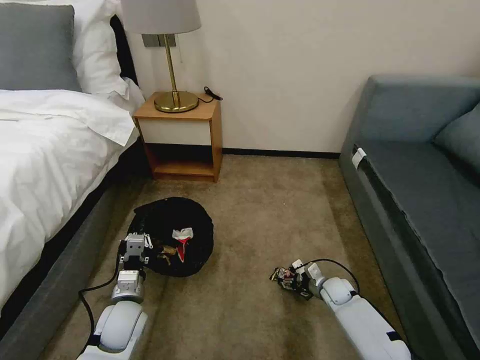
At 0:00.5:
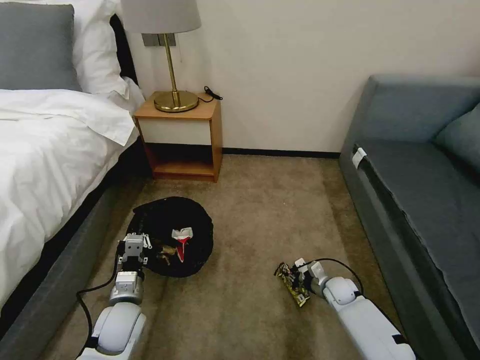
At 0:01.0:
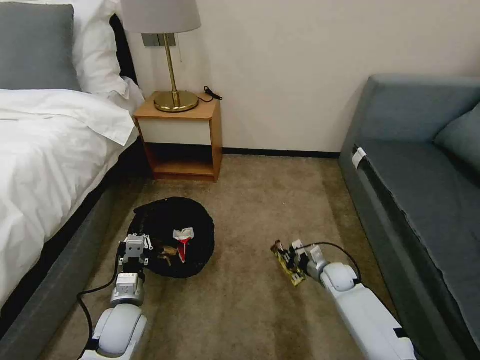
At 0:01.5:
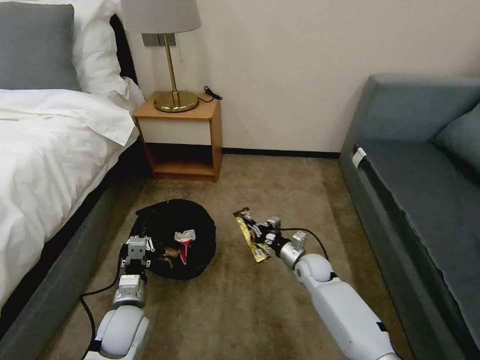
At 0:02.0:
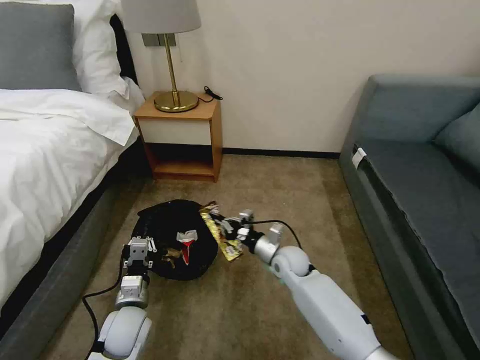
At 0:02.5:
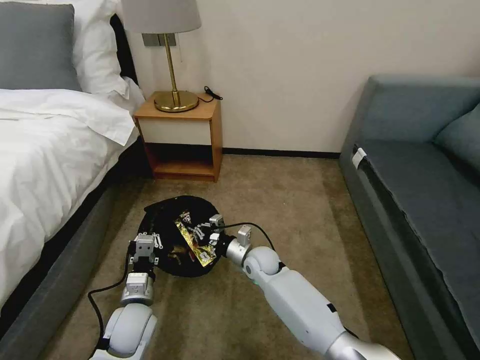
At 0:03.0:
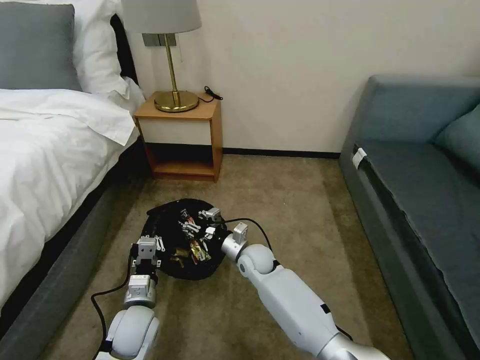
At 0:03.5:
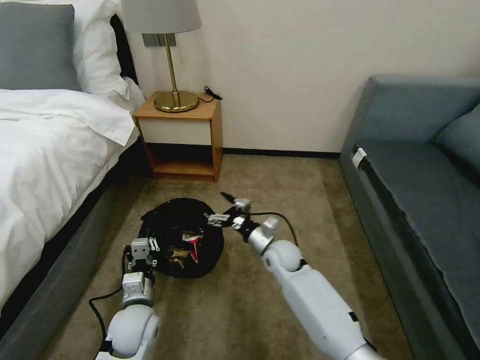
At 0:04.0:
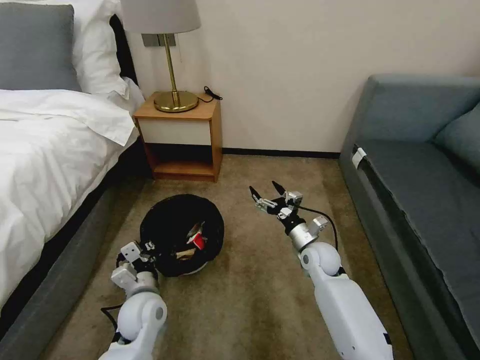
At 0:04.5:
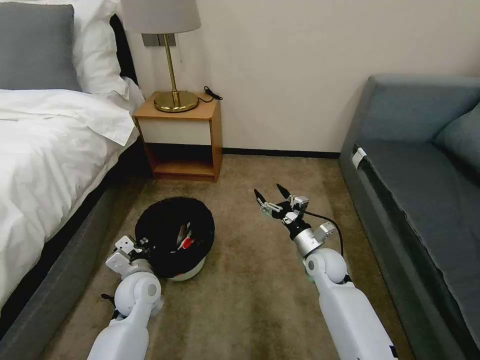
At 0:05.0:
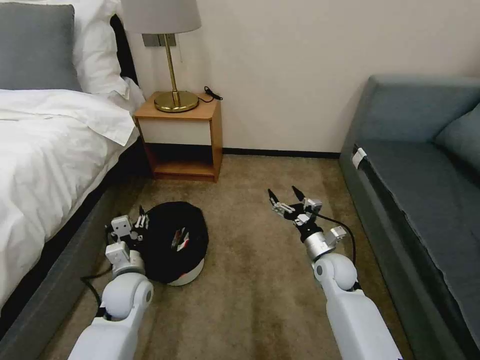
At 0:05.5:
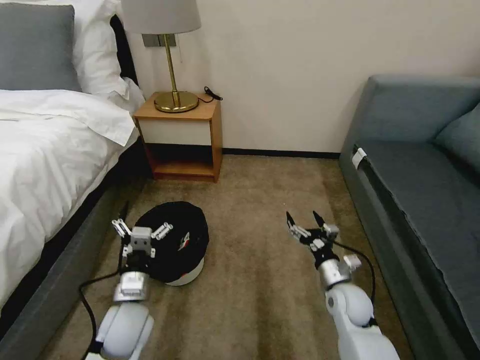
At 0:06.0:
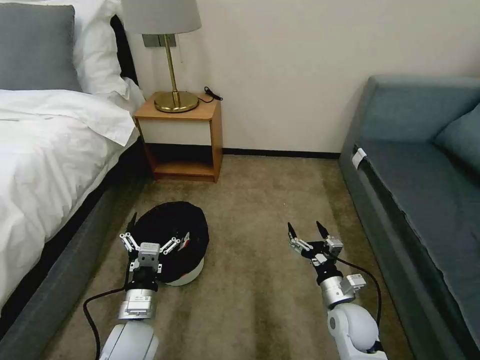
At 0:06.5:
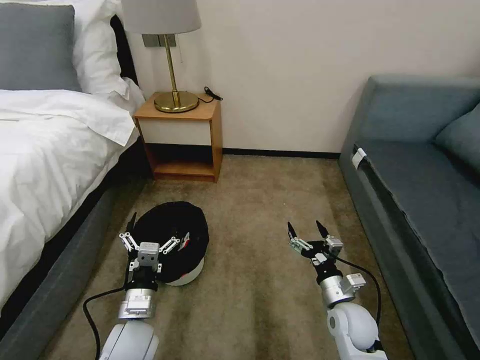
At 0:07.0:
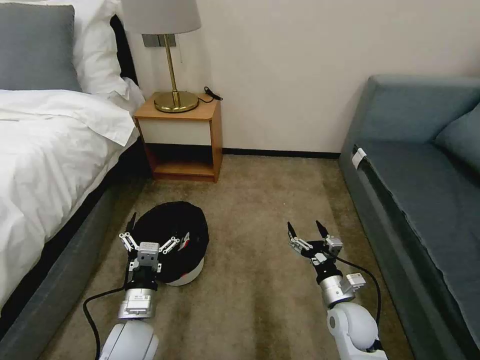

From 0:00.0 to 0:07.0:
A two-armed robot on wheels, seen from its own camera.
Task of the whole recording: Pick up the trash bin, then pick up the garbage on the floor and place it into the trash bin.
From 0:00.0 to 0:02.0: The right gripper goes some 25 cm to the left and upward, and closes its fingers.
From 0:02.0 to 0:03.5: The right gripper moves roughly 10 cm to the left and comes back, and opens its fingers.
From 0:03.5 to 0:05.0: The right gripper travels to the right by about 10 cm. The left gripper goes approximately 5 cm forward, and opens its fingers.
From 0:05.0 to 0:07.0: Both grippers travel together backward, some 10 cm.

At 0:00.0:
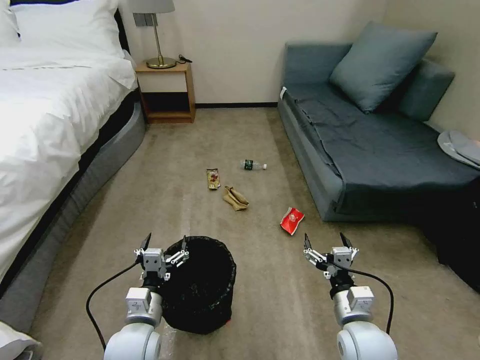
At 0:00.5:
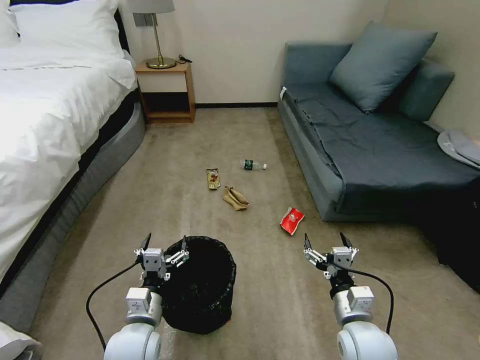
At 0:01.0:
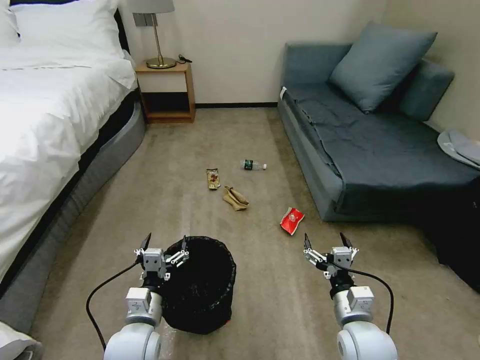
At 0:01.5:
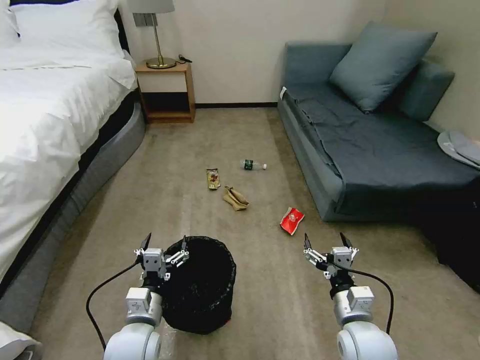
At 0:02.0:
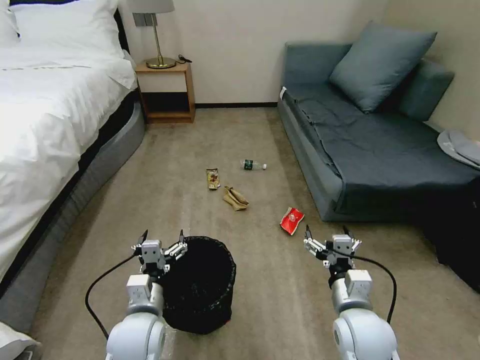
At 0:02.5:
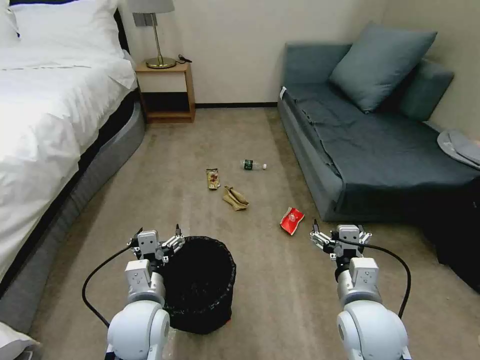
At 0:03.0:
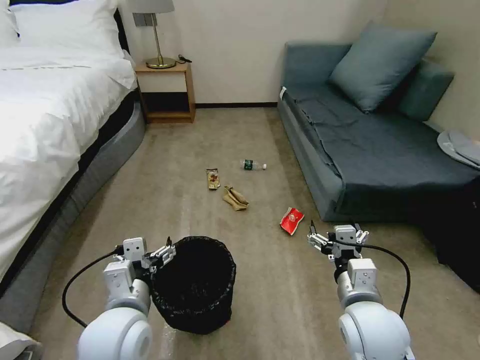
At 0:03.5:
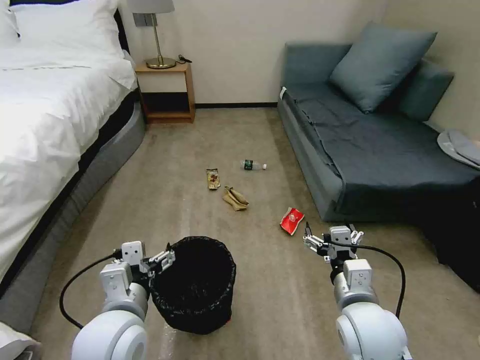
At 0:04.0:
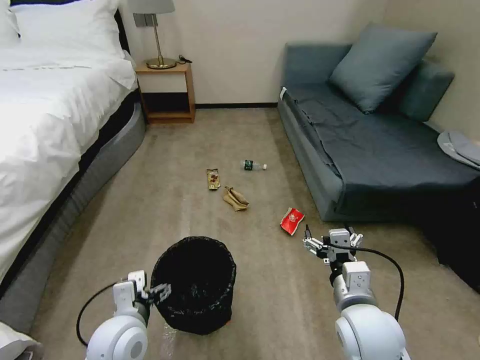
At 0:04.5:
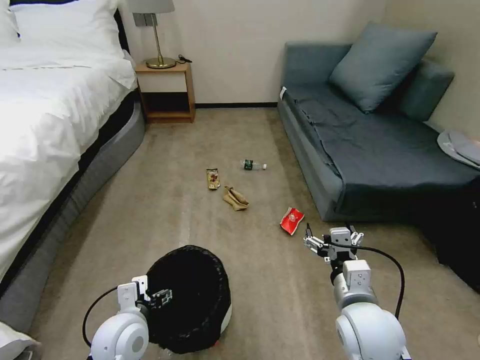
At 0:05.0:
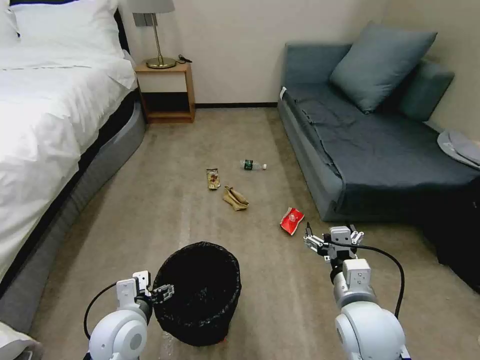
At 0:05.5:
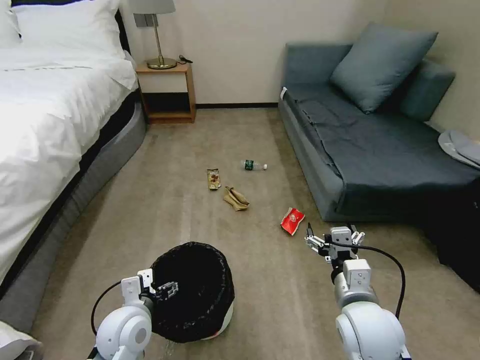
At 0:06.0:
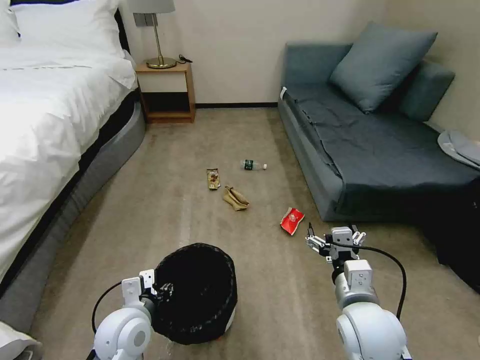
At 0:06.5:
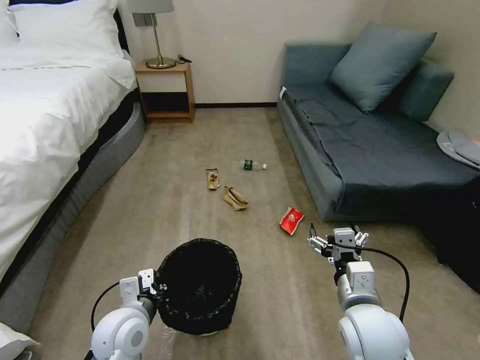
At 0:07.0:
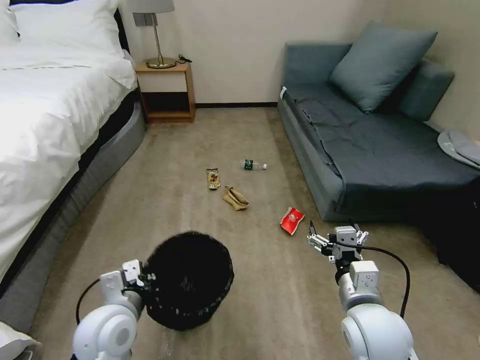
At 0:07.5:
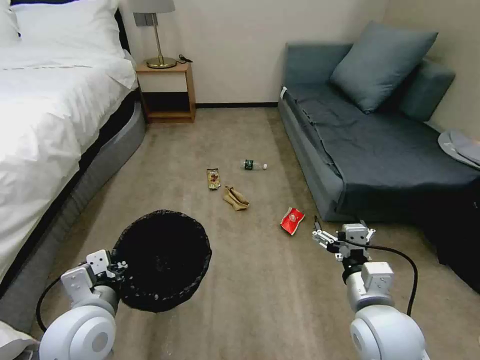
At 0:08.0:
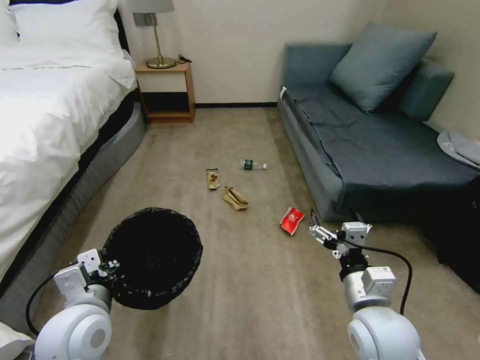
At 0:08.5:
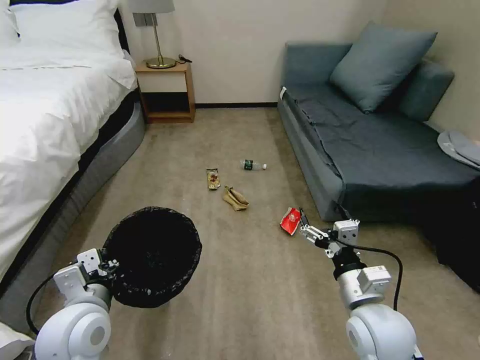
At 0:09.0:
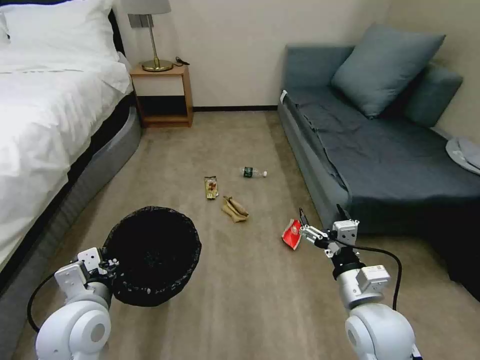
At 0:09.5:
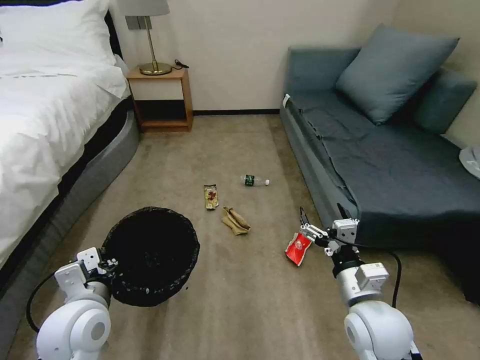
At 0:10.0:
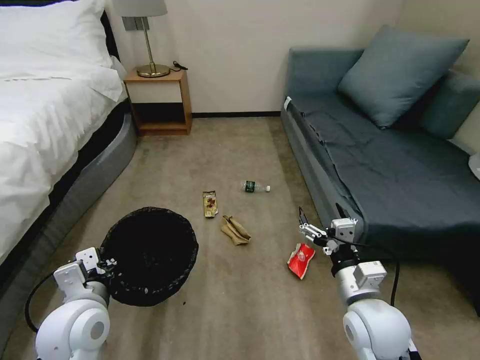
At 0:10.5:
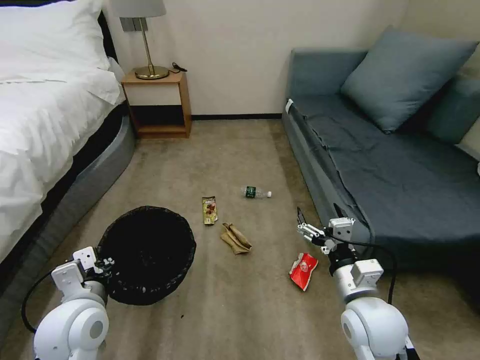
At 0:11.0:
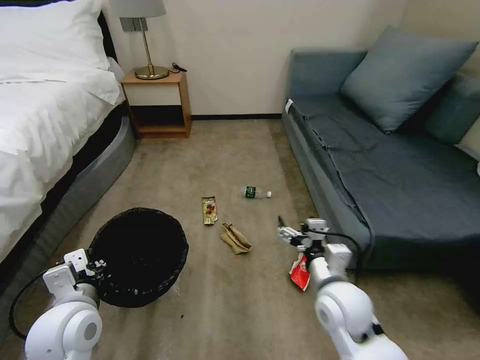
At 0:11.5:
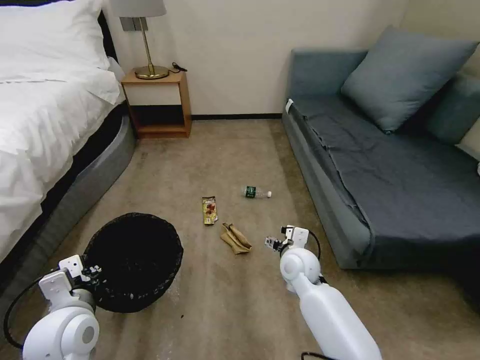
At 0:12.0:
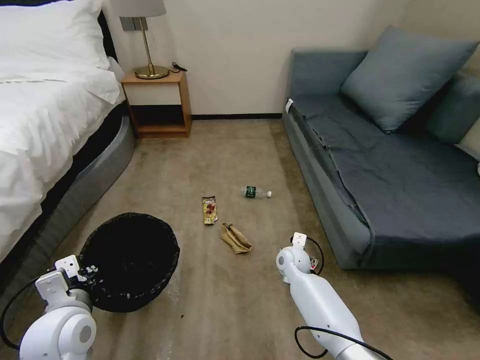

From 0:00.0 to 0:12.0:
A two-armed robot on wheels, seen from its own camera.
Task of the whole recording: Pick up the trash bin, then pick up the garbage on the floor and place it into the trash bin.
From 0:02.0 to 0:04.0: The right gripper travels upward by some 5 cm, while the left gripper moves roughly 10 cm upward and comes back.
From 0:04.0 to 0:06.0: The left gripper closes its fingers.
From 0:06.0 to 0:08.0: The left gripper travels upward by some 10 cm, and closes its fingers.
From 0:10.0 to 0:12.0: The right gripper heads forward and downward, covering about 25 cm.

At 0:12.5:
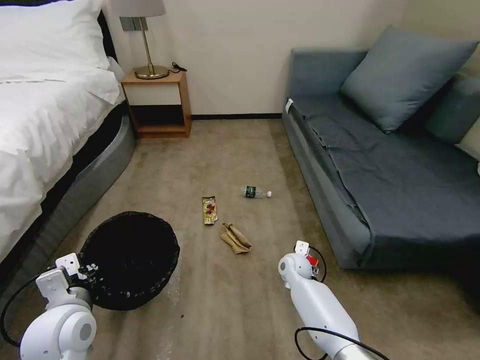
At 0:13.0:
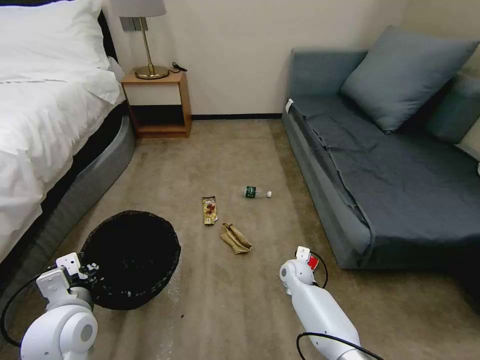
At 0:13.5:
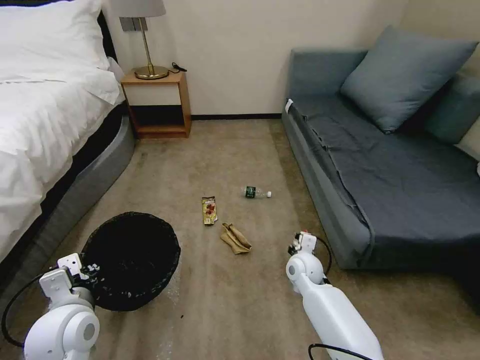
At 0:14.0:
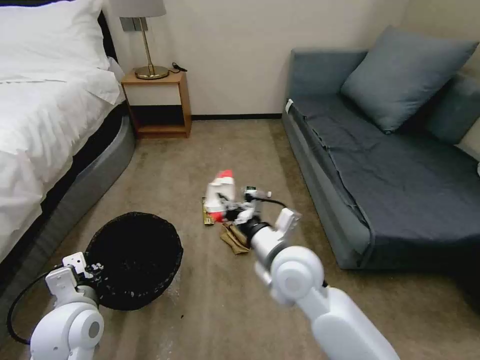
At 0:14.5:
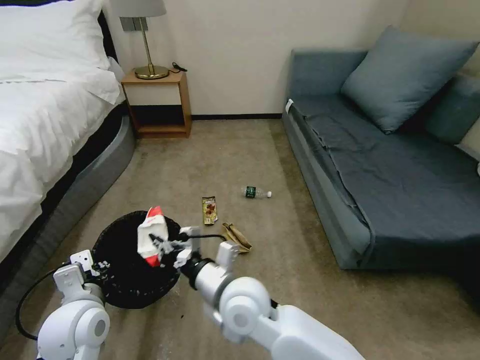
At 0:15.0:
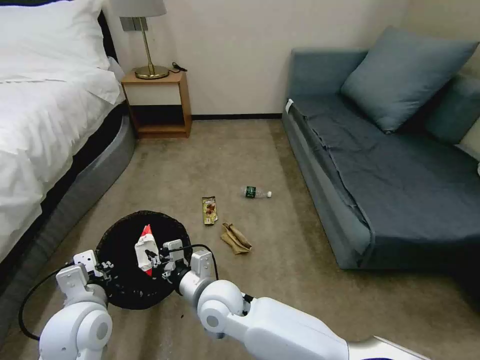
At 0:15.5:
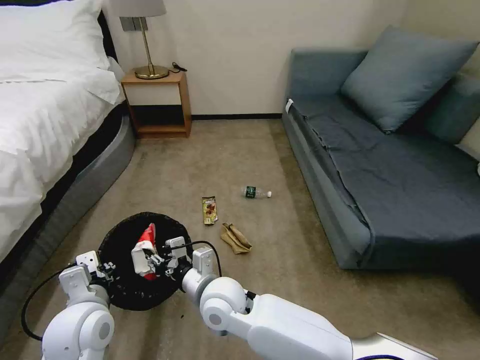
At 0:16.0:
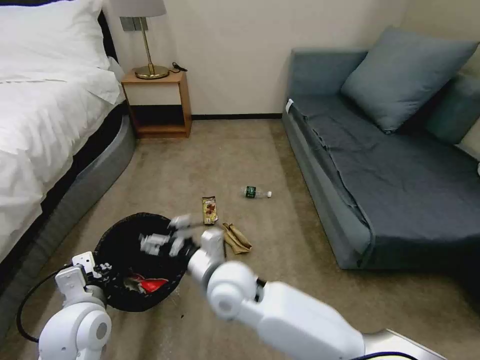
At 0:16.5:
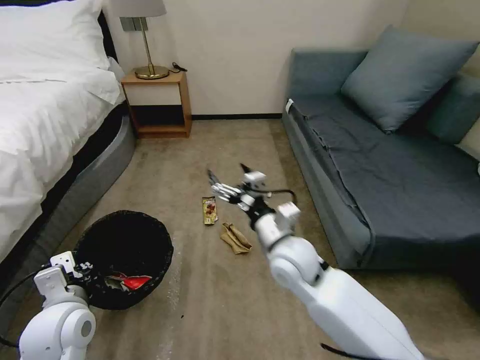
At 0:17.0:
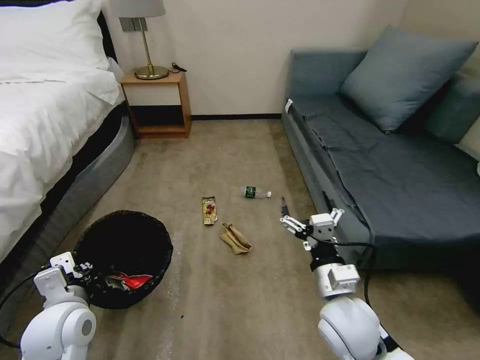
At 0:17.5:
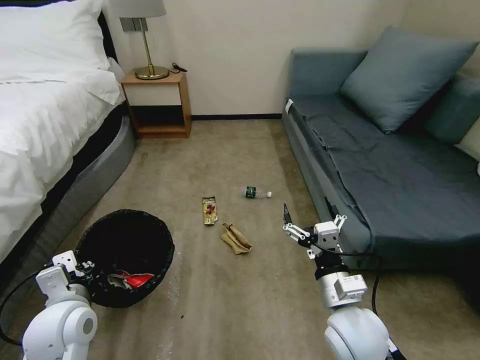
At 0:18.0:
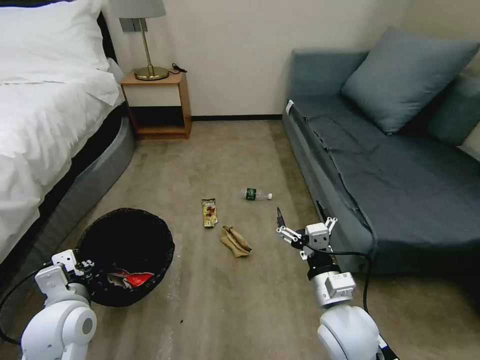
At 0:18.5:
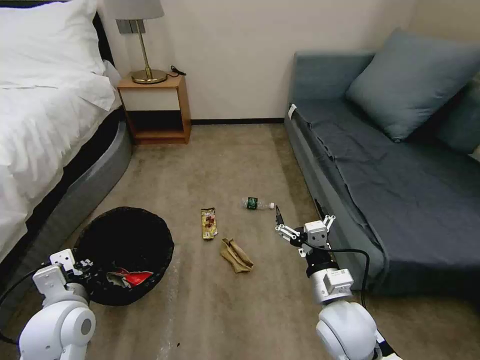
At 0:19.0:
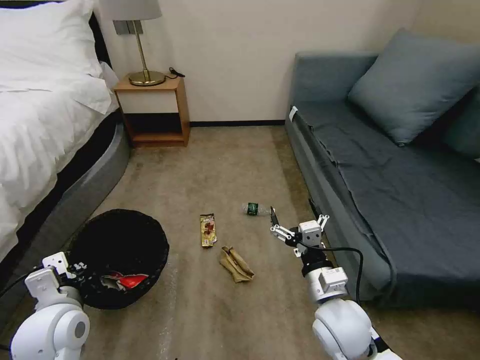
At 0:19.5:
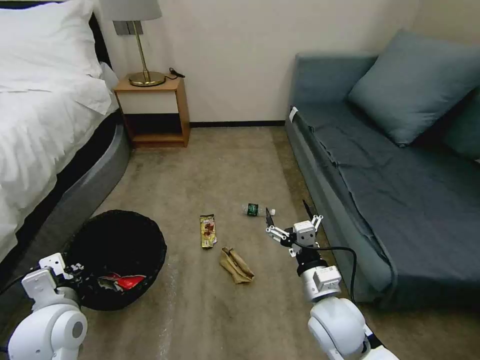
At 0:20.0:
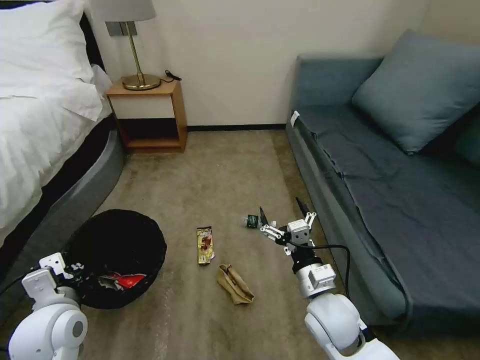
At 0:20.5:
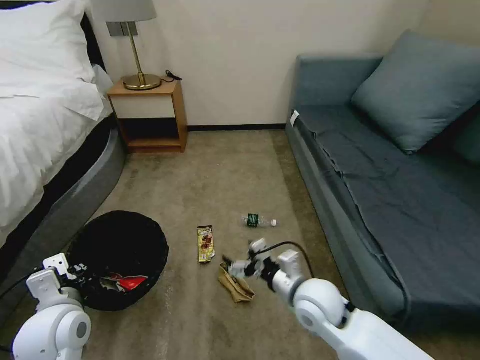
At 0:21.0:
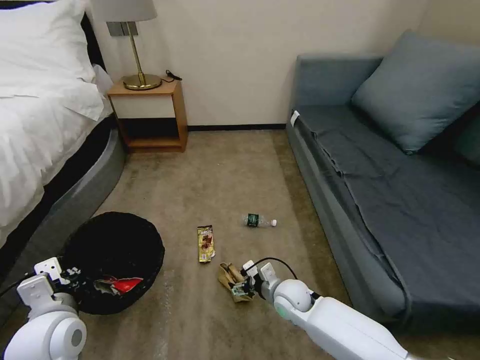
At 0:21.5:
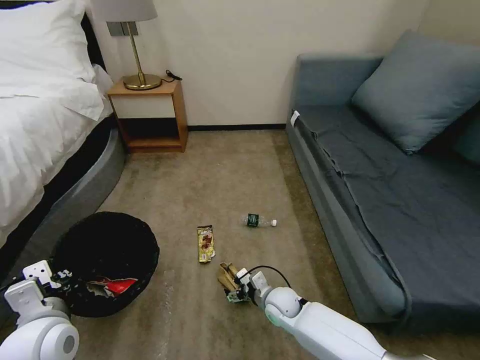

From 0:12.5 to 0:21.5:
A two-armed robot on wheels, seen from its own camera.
Task of the whole recording: Pick up the trash bin, then pick up the garbage on the floor and place it into the trash bin.
From 0:12.5 to 0:14.5: The right gripper travels upward, backward and to the left by some 30 cm, and closes its fingers.
From 0:14.5 to 0:17.0: The right gripper is displaced to the right by some 20 cm, and opens.
From 0:19.5 to 0:21.5: The right gripper heads downward and forward, covering some 20 cm.
